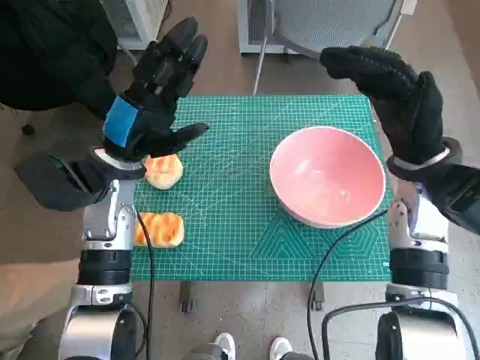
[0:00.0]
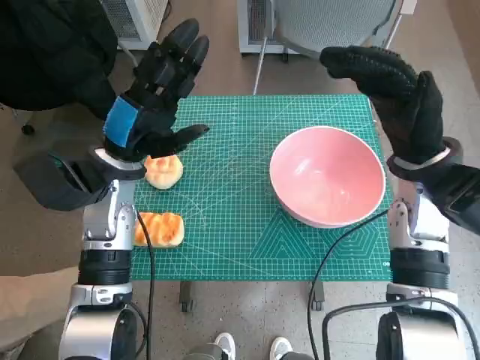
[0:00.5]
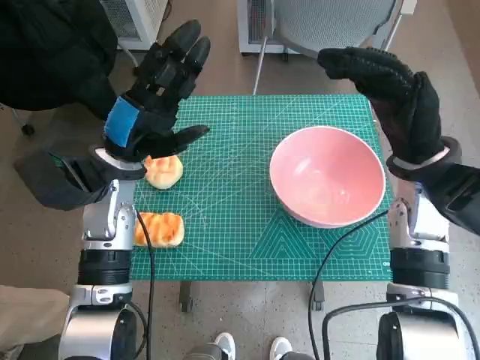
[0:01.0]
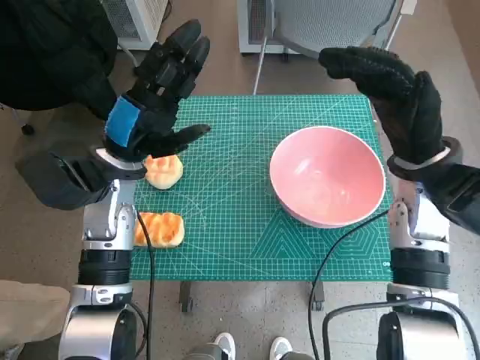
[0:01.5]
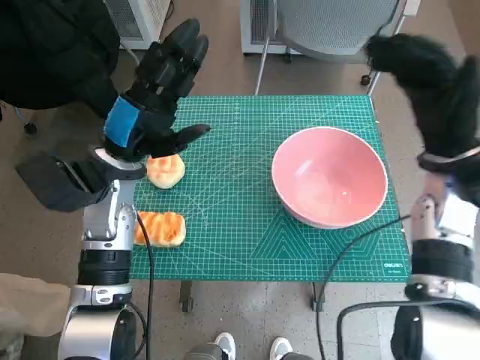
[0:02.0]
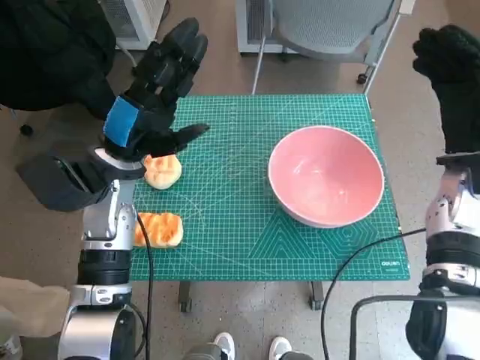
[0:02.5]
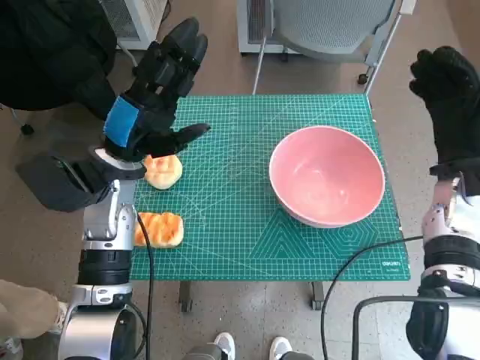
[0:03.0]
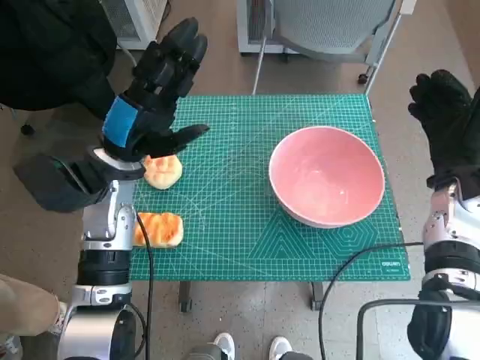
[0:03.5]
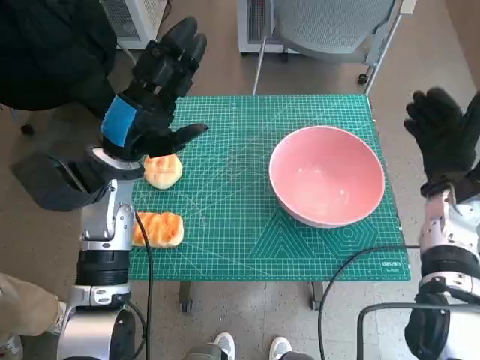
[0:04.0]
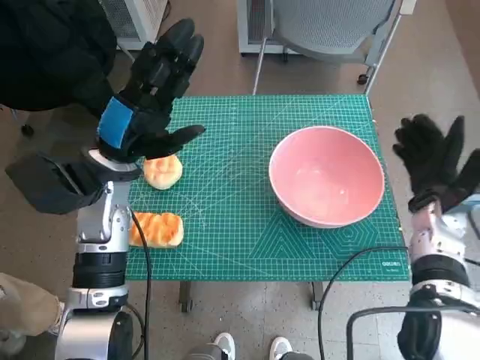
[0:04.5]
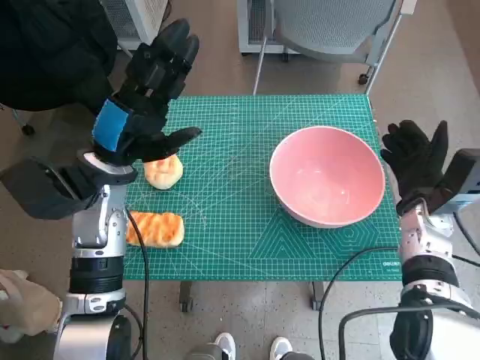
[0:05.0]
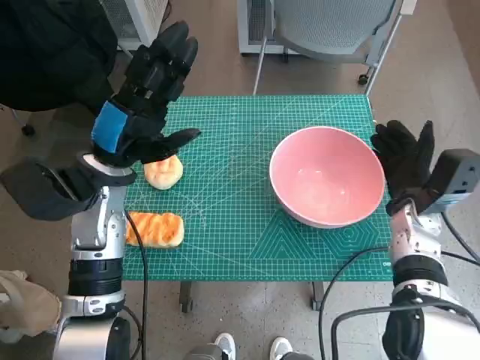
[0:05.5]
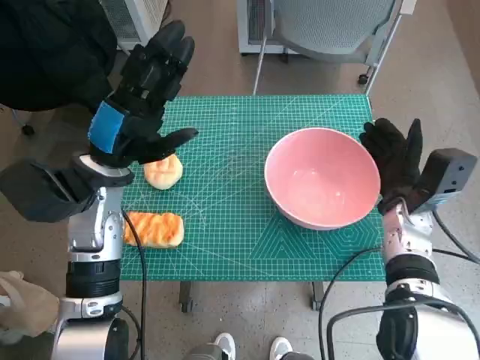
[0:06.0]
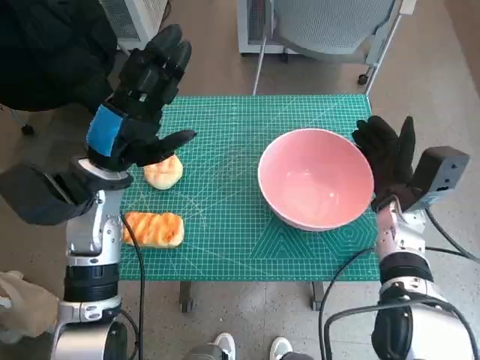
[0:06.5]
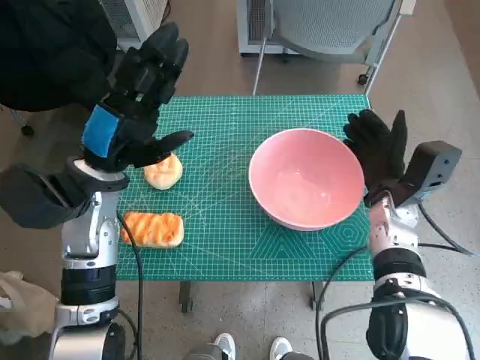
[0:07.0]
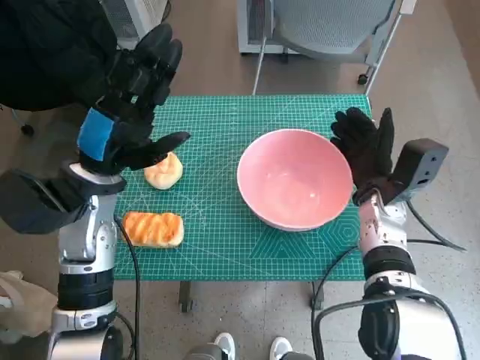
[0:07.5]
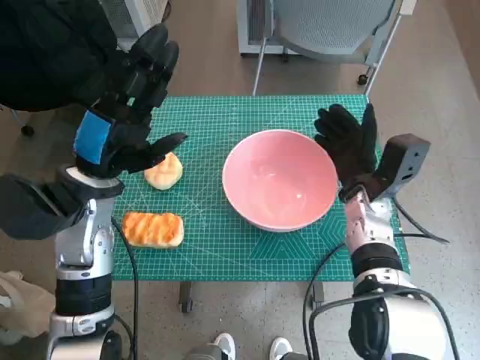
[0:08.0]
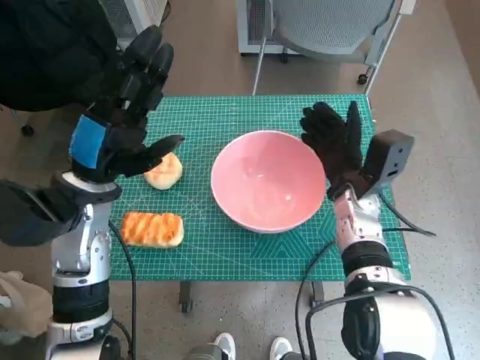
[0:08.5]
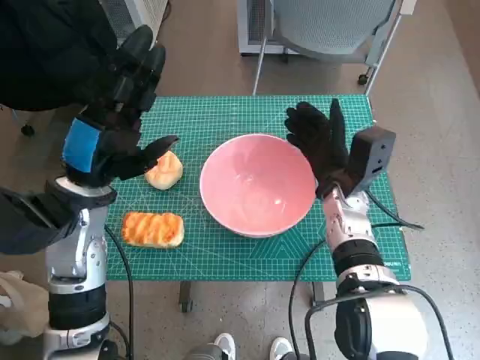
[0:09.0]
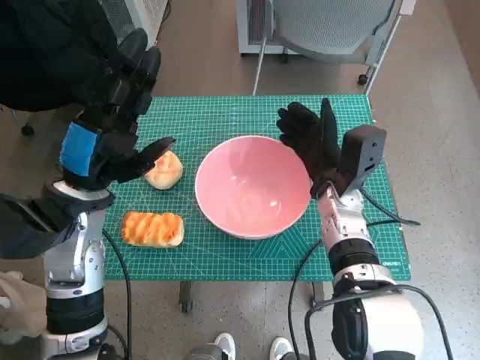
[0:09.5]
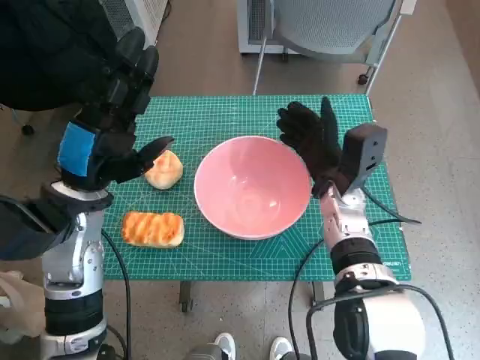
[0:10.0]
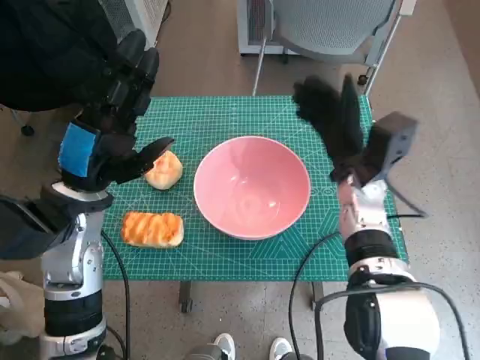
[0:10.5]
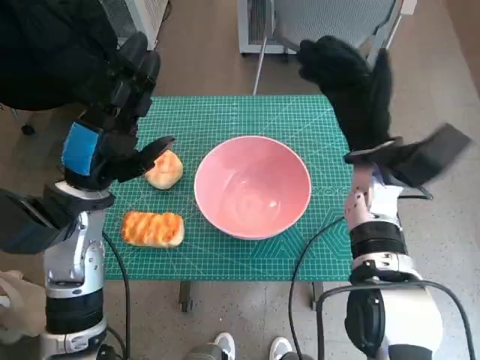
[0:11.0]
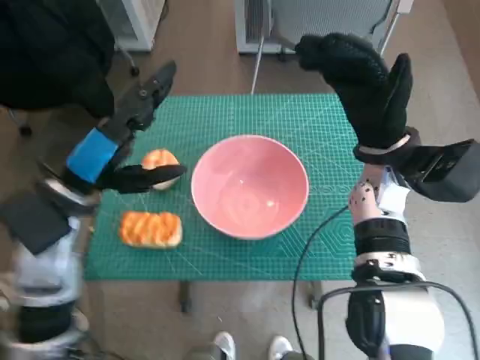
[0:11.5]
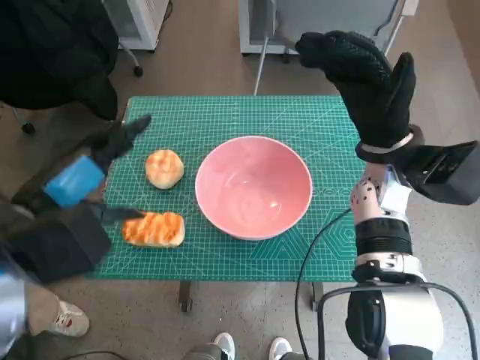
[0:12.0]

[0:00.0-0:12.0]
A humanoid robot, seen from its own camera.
Step, 0:00.0 to 0:10.0: Move the pink bowl to the center of table with right hand.
0:02.0 to 0:04.0: The right hand goes some 5 cm downward.
0:04.0 to 0:06.0: The right hand shifts by some 5 cm.
0:06.0 to 0:08.0: The right hand is displaced to the left by about 5 cm.
0:10.0 to 0:12.0: The right hand moves upward, some 10 cm; the left hand heads backward and upward, covering roughly 10 cm.

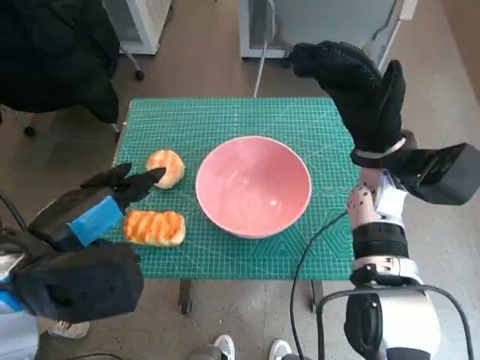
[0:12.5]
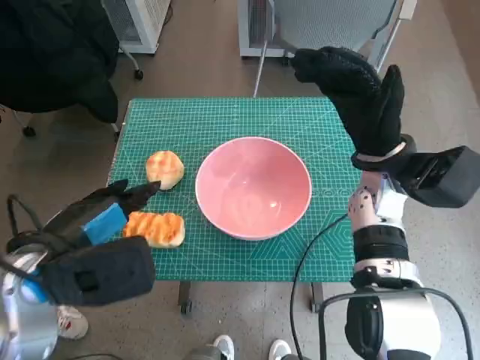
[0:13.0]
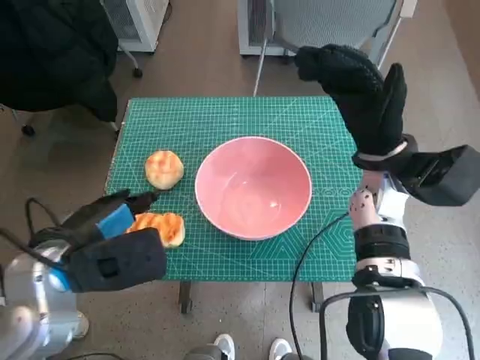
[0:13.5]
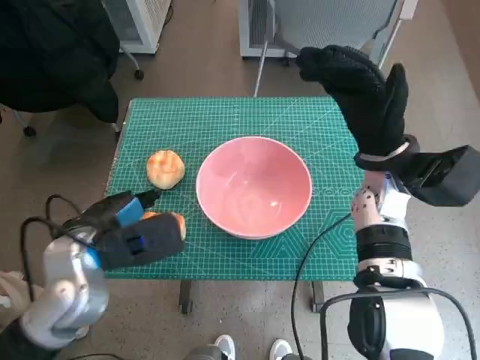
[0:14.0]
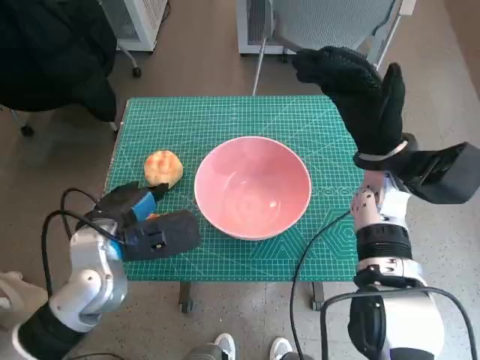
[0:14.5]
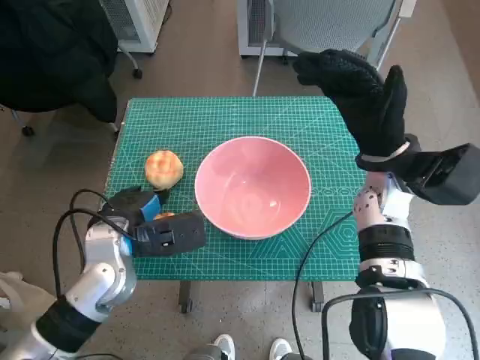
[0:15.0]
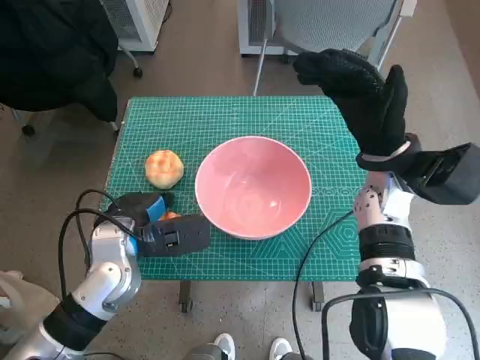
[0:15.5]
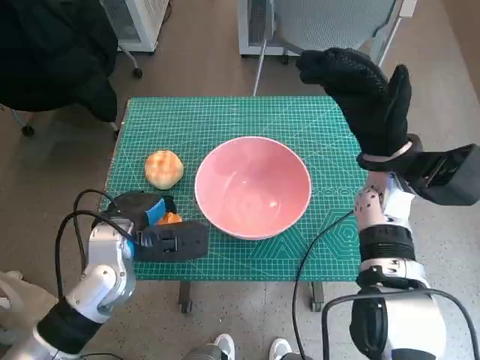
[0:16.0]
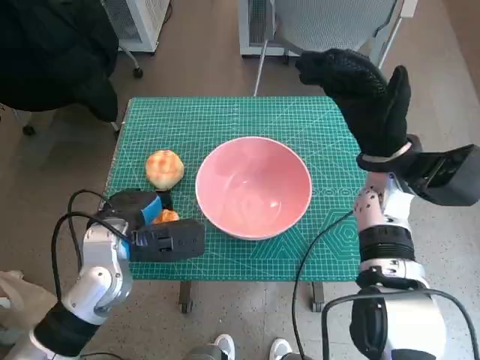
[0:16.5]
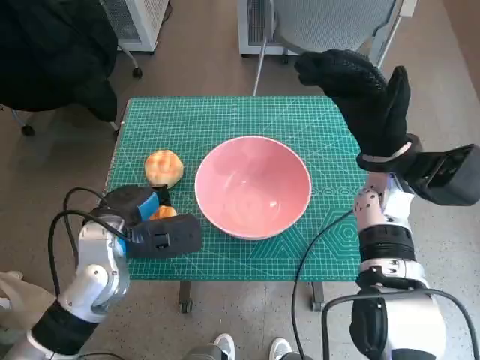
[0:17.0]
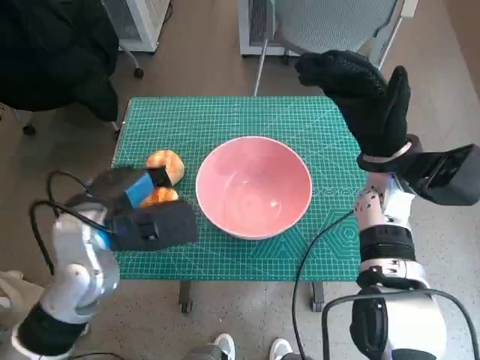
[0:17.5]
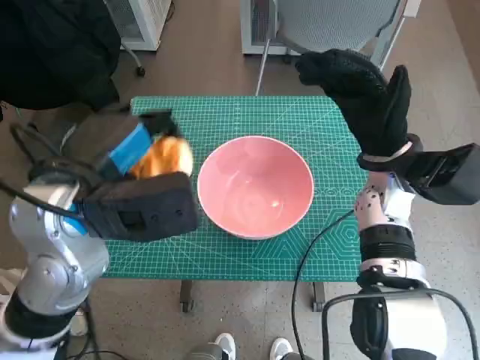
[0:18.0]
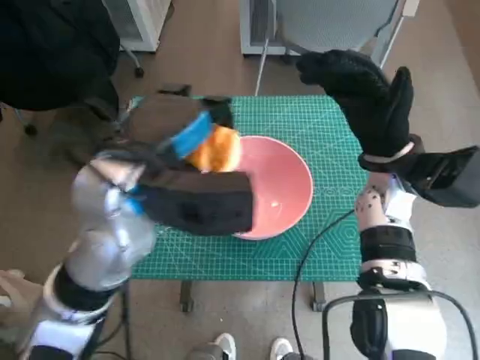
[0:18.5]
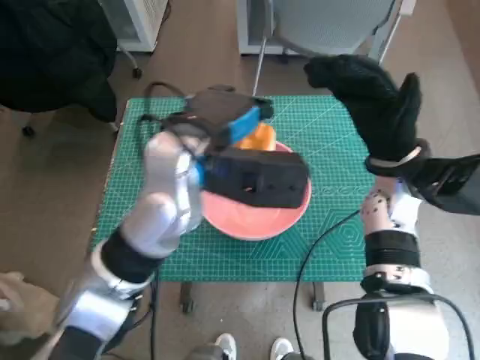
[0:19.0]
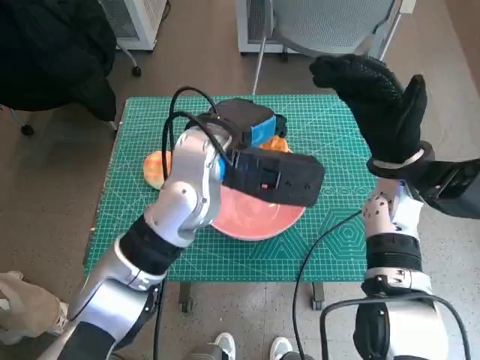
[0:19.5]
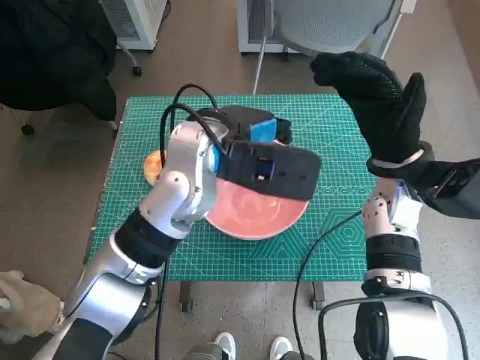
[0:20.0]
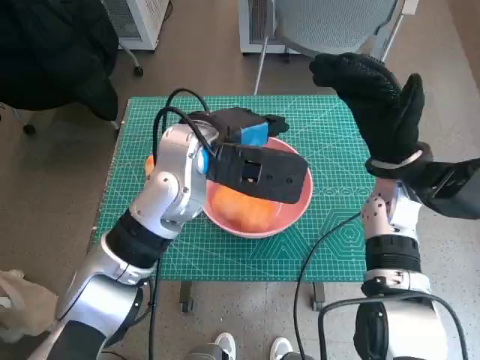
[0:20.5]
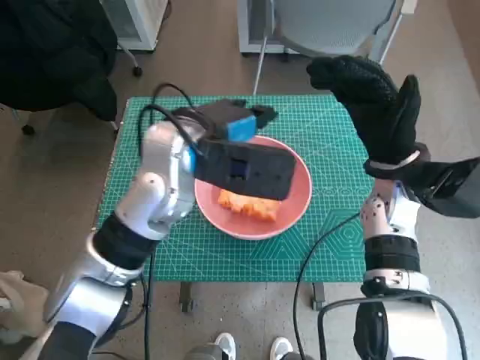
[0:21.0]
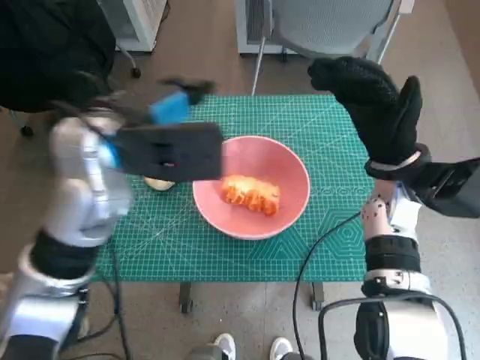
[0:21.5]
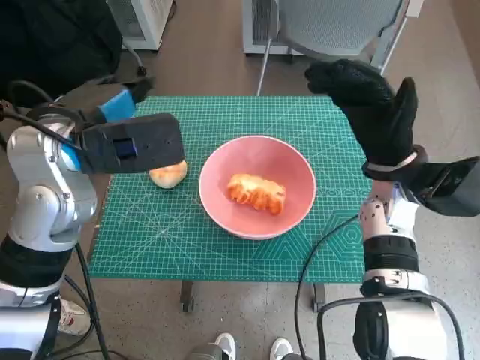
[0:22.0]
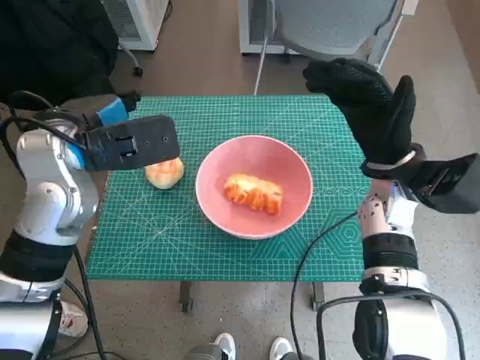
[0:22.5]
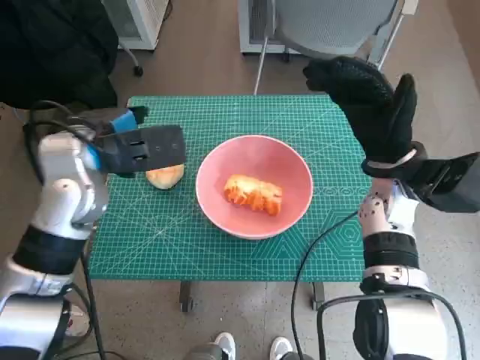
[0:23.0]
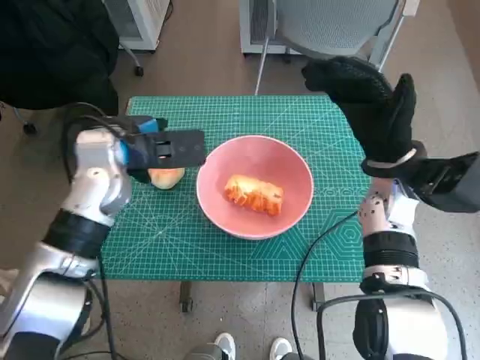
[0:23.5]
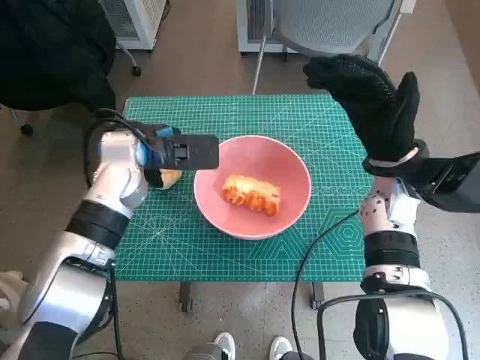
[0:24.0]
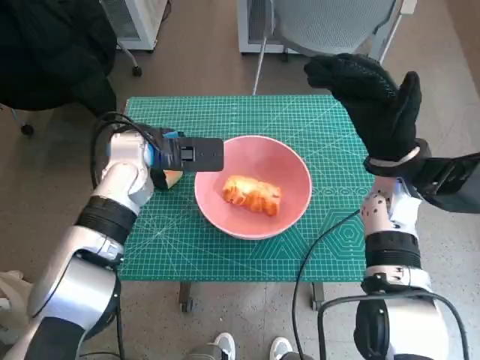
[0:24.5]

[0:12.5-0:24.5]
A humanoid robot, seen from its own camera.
Step, 0:12.5 to 0:16.0: Grasp the long bread with left hand.
Step, 0:16.5 to 0:20.5: Place the long bread in pink bowl with left hand.
0:12.5 to 0:14.5: The left hand is displaced downward and forward by some 10 cm.
0:14.5 to 0:16.5: The hands make only small movements.
0:16.5 to 0:18.5: The left hand shifts about 15 cm upward and to the right.
0:18.5 to 0:20.5: The left hand shifts some 10 cm forward and to the right.
0:20.5 to 0:22.5: The left hand heads to the left, covering approximately 15 cm.
0:22.5 to 0:24.5: The left hand heads downward and forward, covering some 10 cm.

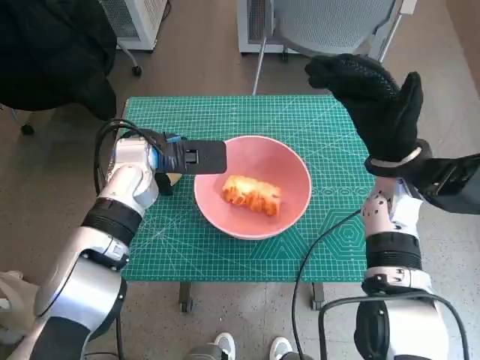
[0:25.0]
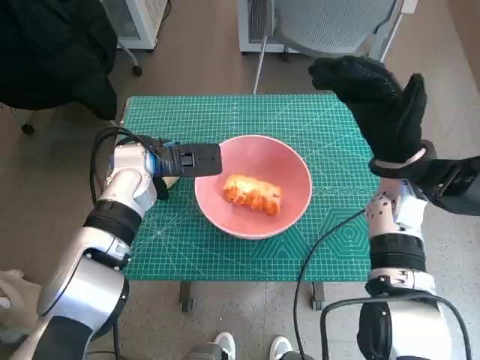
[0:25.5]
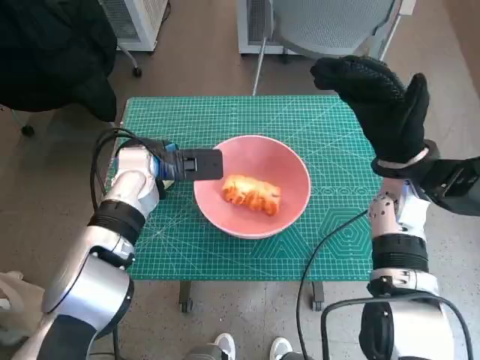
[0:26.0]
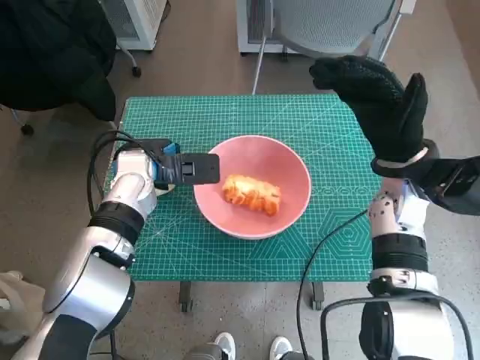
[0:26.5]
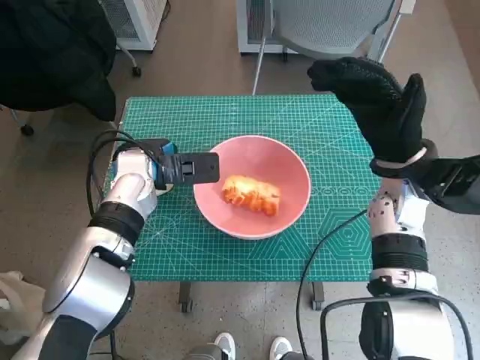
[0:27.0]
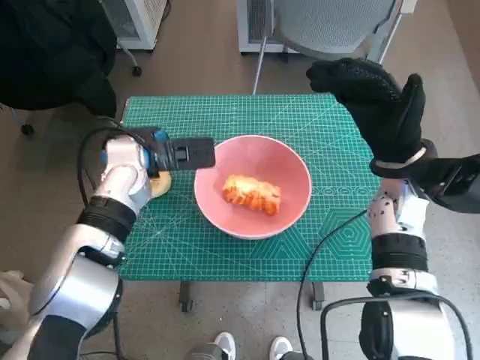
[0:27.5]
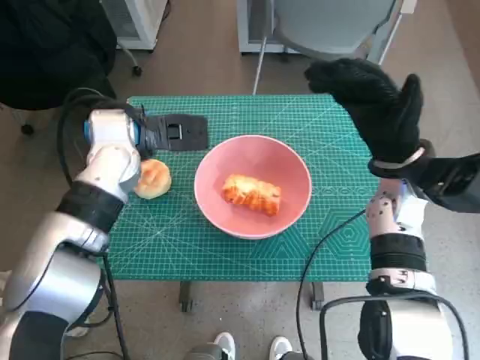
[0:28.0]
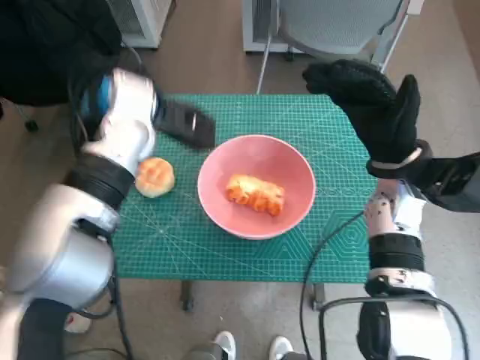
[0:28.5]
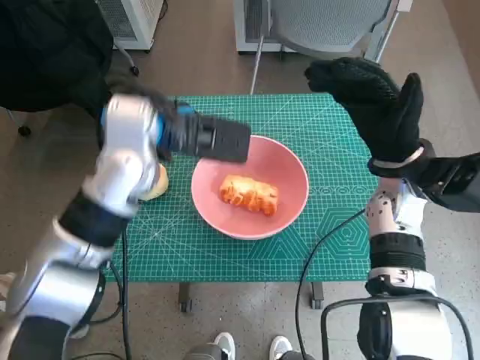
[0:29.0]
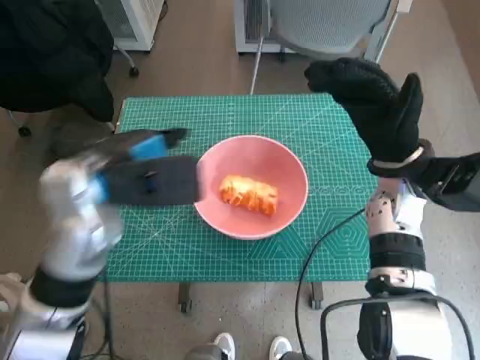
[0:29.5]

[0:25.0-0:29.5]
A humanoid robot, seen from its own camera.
0:25.0 to 0:27.0: The hands move only a little.
0:27.0 to 0:29.5: The left hand goes roughly 15 cm upward and backward.
